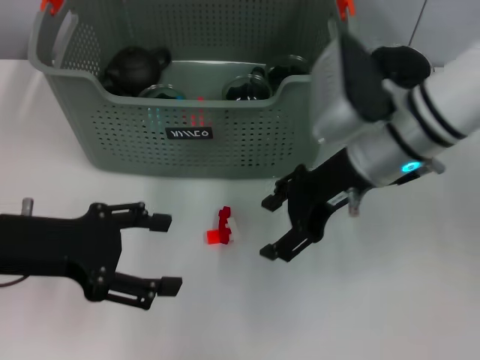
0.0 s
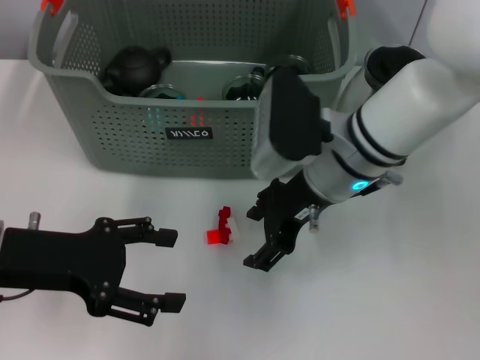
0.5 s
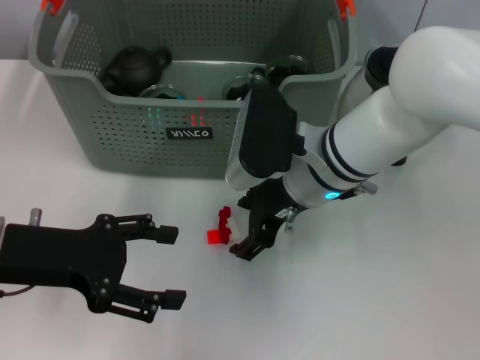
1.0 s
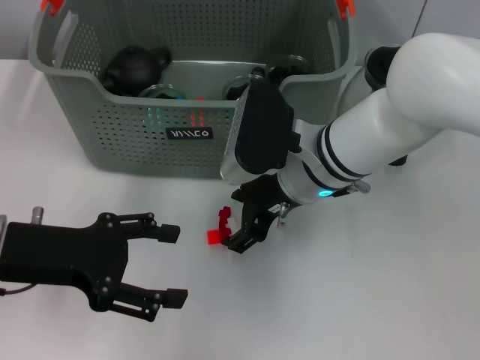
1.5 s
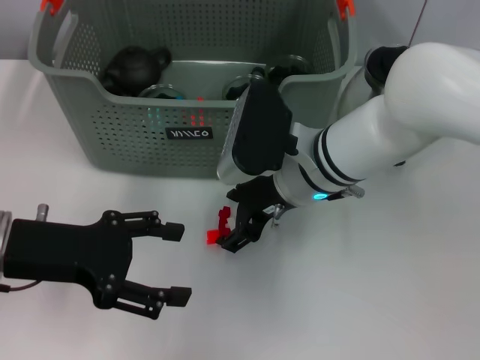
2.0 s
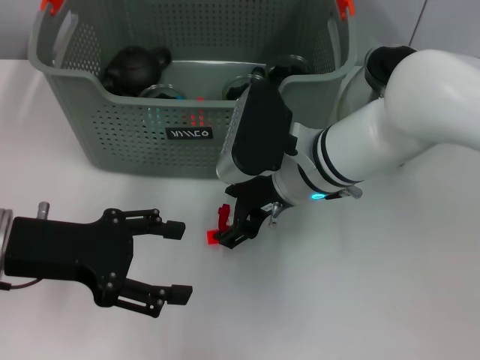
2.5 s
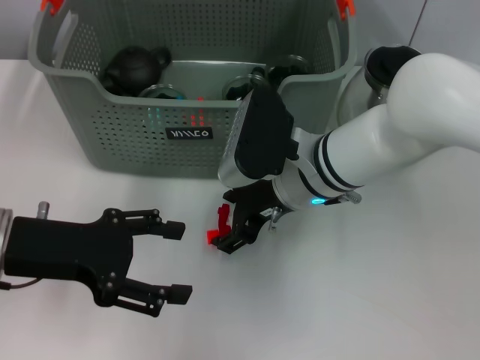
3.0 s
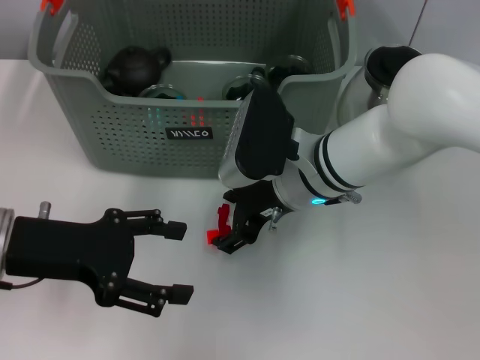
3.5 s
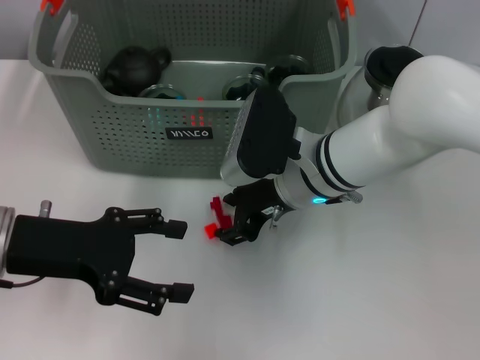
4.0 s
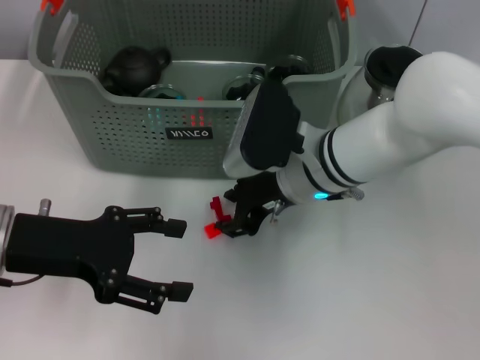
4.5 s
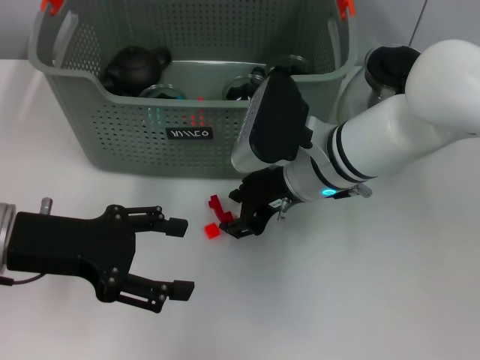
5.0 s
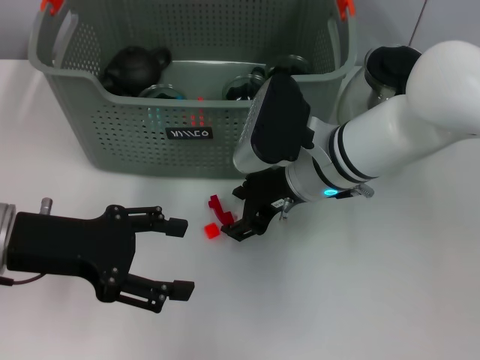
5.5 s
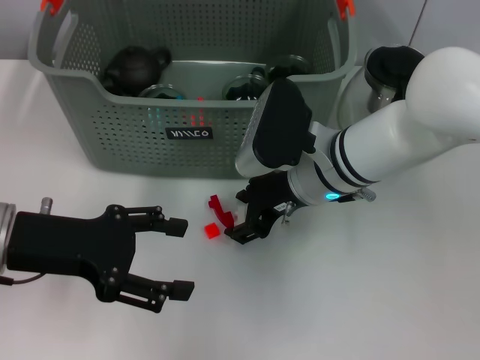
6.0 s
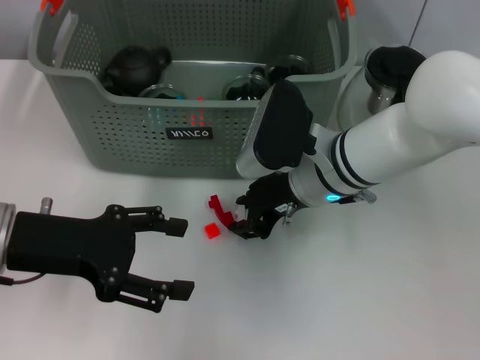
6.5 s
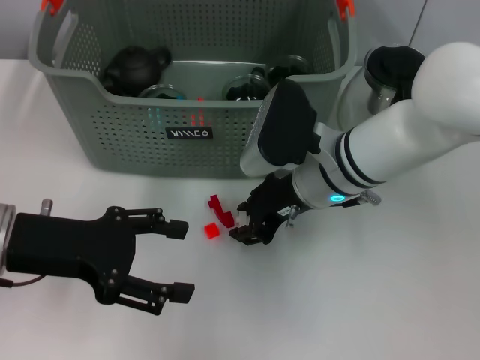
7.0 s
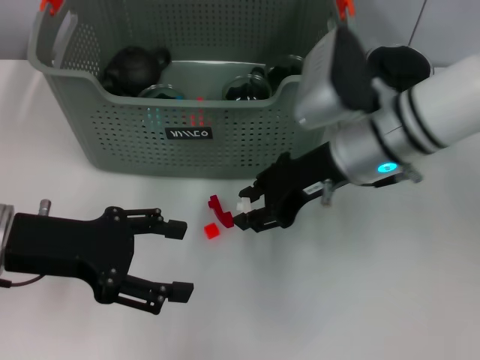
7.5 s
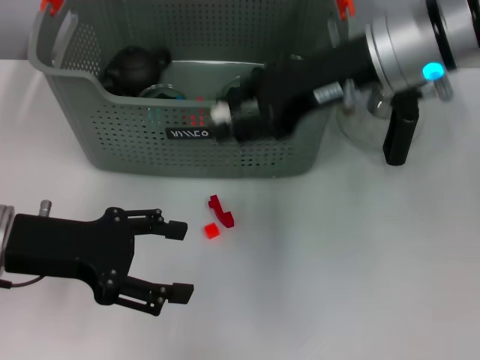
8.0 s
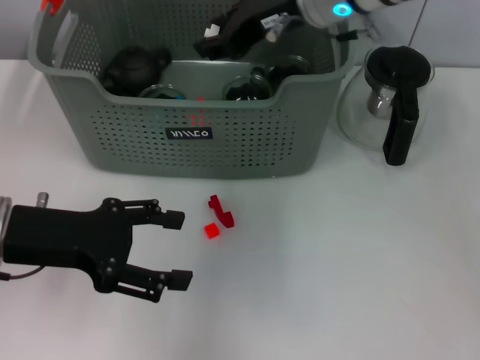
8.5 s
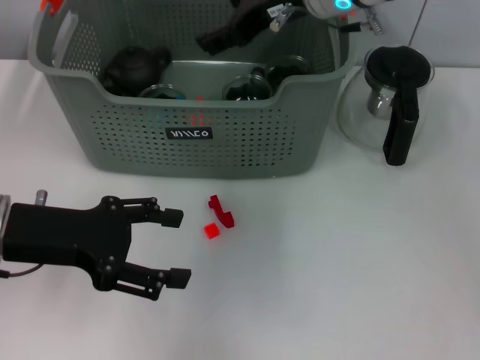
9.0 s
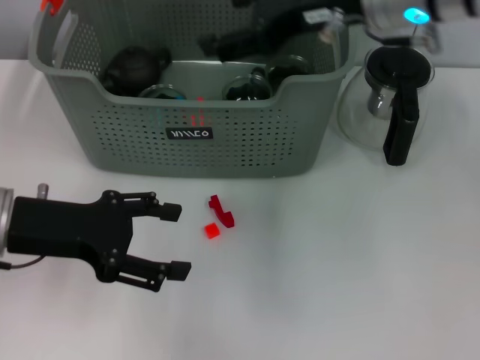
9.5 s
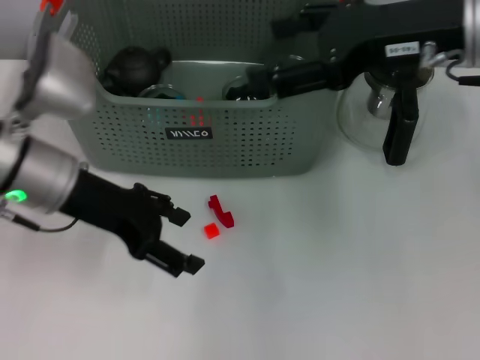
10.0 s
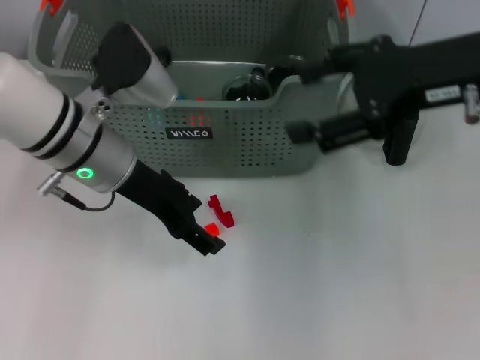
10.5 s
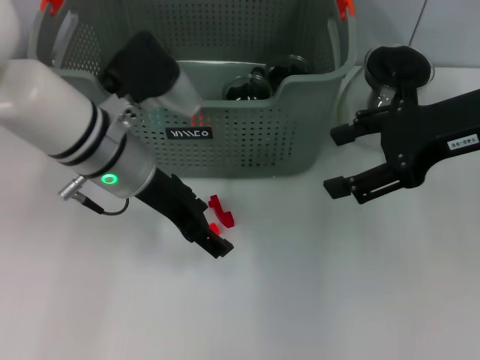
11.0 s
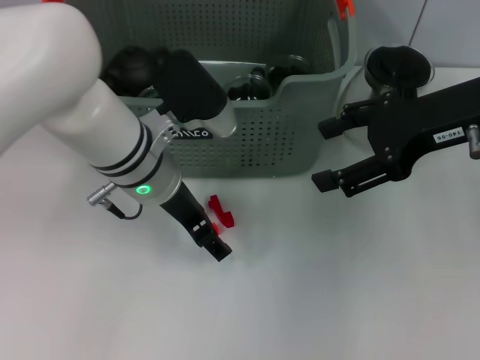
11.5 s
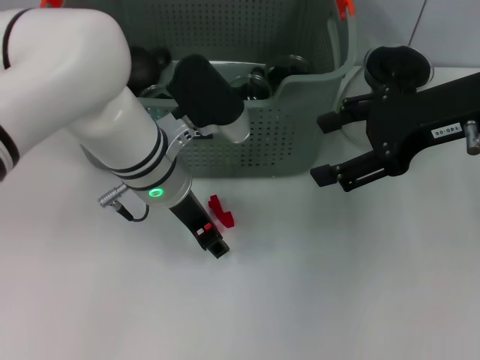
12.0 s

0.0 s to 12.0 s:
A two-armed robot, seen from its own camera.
Task of the whole recording: pick up the teacup on the table and place it into the storage bin, pick up the block on the table and place it into the storage bin.
Step, 0.0 to 6.5 s: Grasp the white block with right gripper.
Step, 7.0 to 8.5 s: Place the white block in the storage box with right gripper.
0.0 to 2.0 s: The right gripper is displaced to the left by some 5 cm.
2.0 to 4.0 s: The two grippers keep their place.
4.0 to 6.0 s: Both grippers stay put.
6.0 to 8.0 s: The right gripper goes about 15 cm upward.
8.0 to 10.0 s: The left gripper goes some 5 cm forward. The right gripper travels to the right by about 5 cm, and opens.
10.0 to 12.0 s: The left gripper goes about 10 cm to the right. Meanwhile the right gripper changes place by roughly 5 cm.

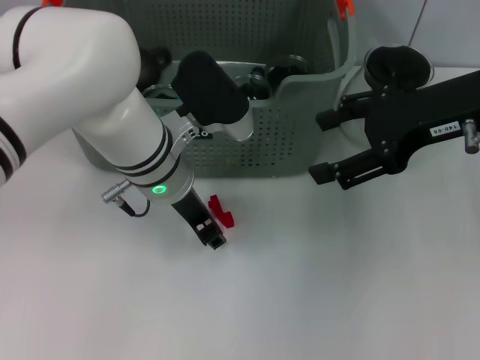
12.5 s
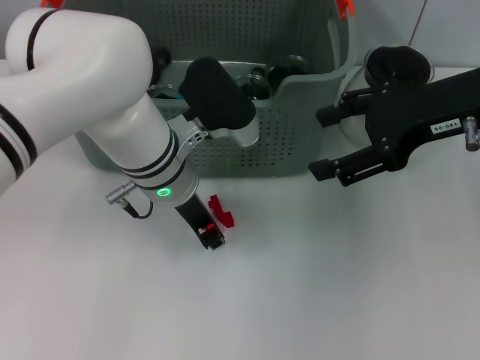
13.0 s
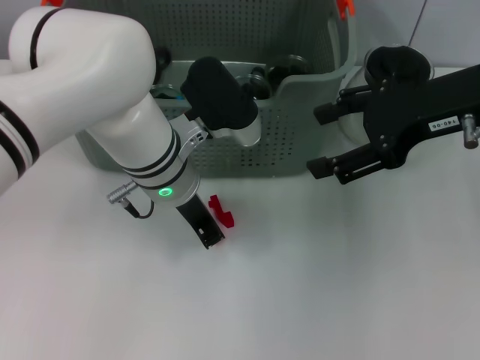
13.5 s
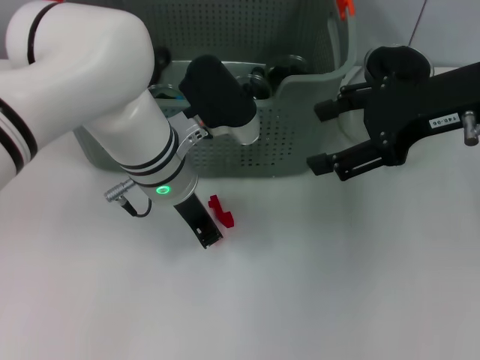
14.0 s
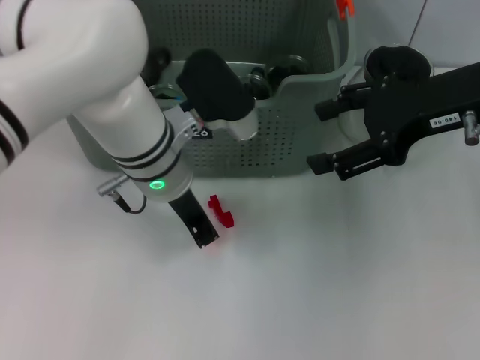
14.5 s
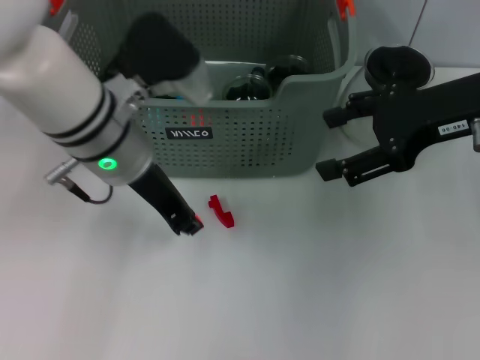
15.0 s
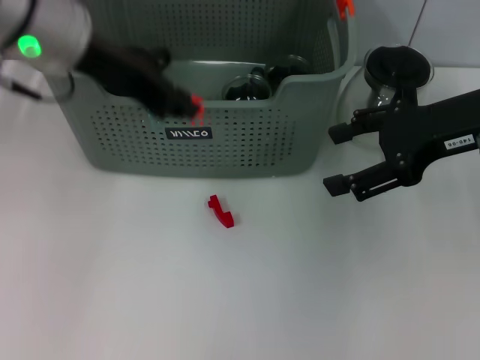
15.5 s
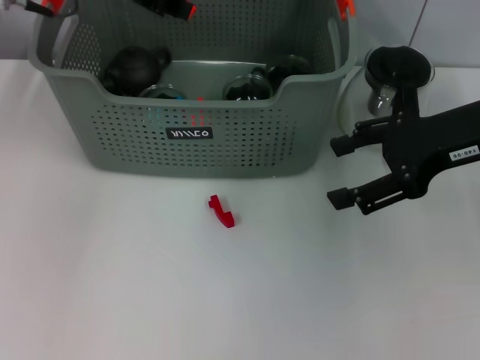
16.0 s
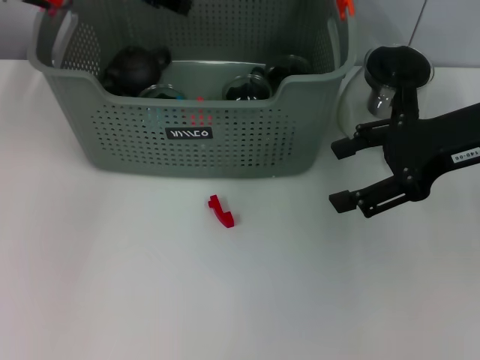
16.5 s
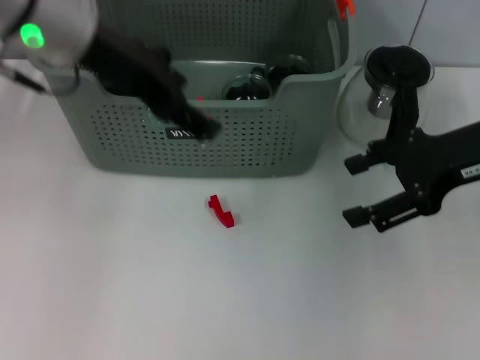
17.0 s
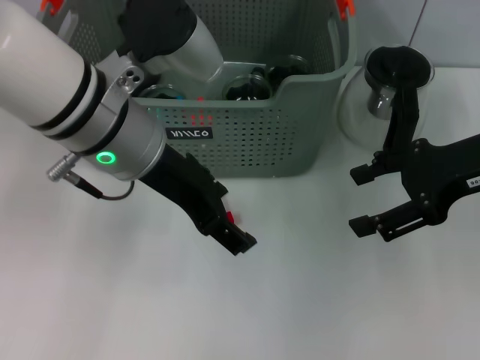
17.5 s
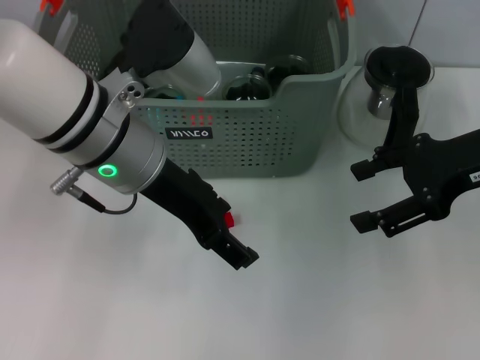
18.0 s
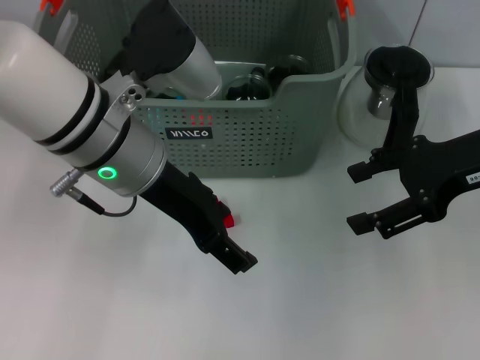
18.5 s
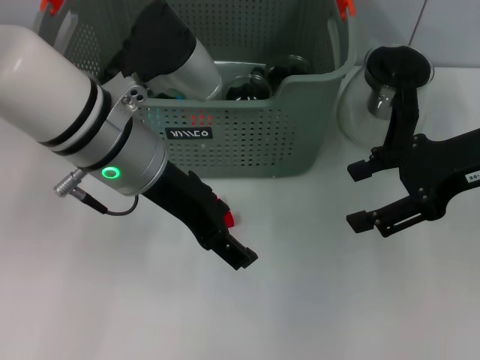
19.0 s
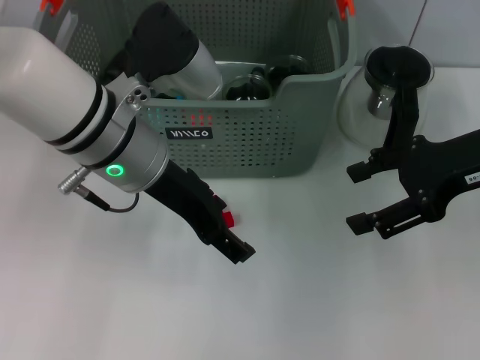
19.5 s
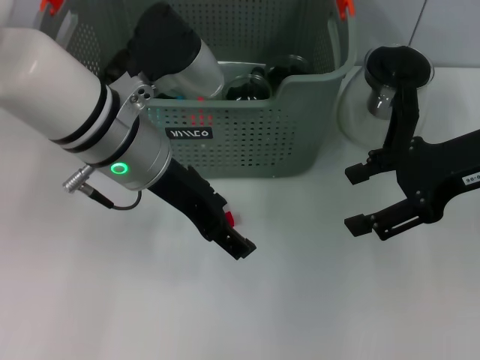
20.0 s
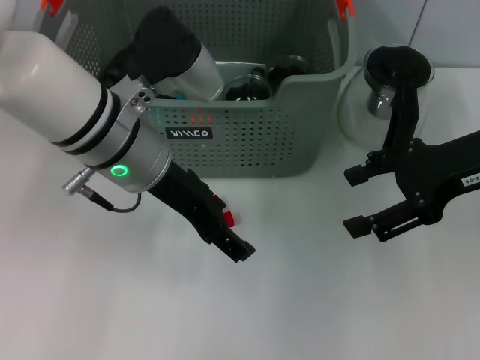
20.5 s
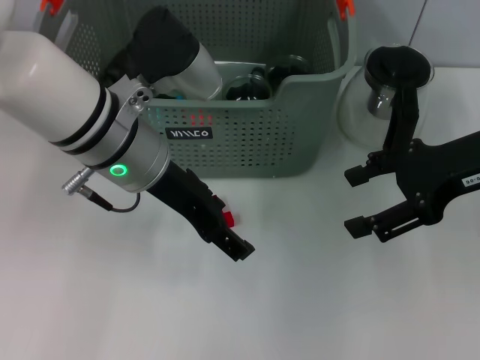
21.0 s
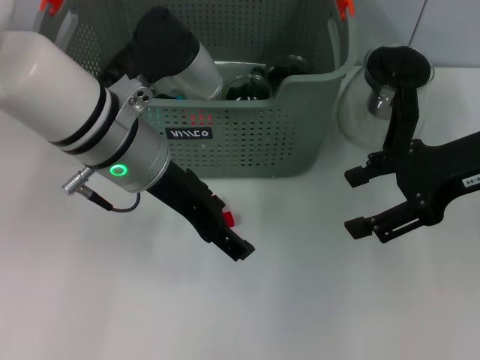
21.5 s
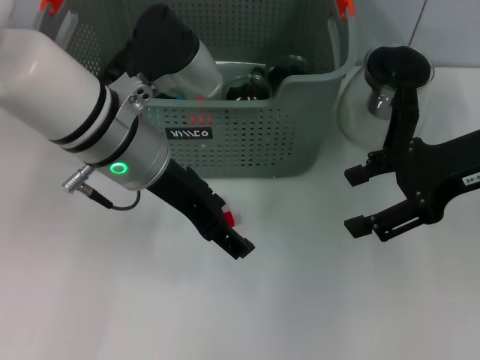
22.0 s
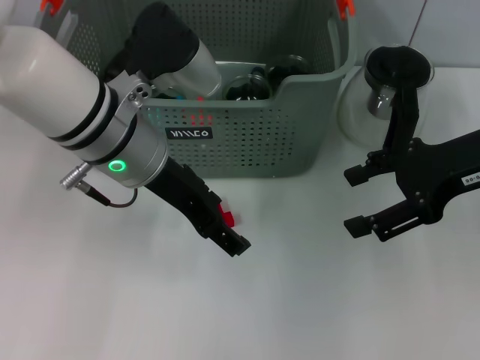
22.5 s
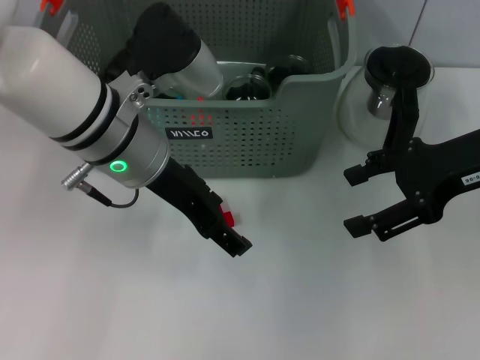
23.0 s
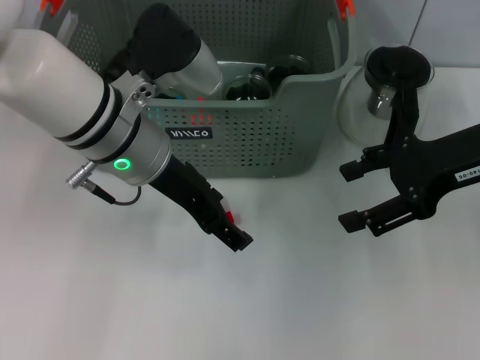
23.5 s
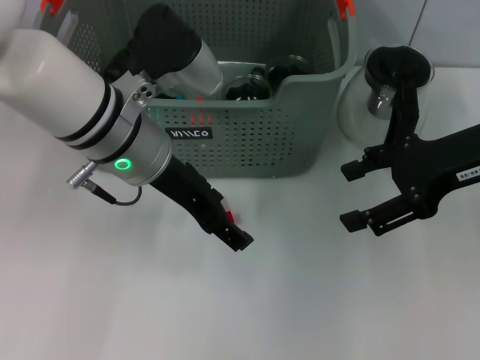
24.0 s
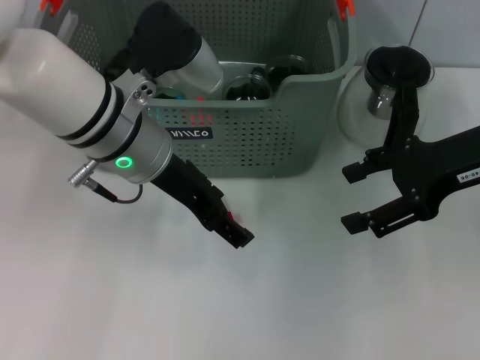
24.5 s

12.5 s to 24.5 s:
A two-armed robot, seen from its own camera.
Task of the whole recording: pick up the teacup on the table and place it into the storage bin, pick up the block on the table and place it into the storage bin.
Step, 14.0 to 16.5 s: Place the orange block in the storage box with left gripper.
12.5 to 14.5 s: The two grippers keep their place.
14.5 to 16.5 s: The left gripper heads upward, to the left and forward, covering about 20 cm.
16.5 to 18.5 s: The left gripper moves backward, downward and to the right, about 15 cm, and opens up.
18.5 to 20.5 s: The grippers stay close to where they were, moving slightly.
20.5 to 24.5 s: Neither gripper changes place.

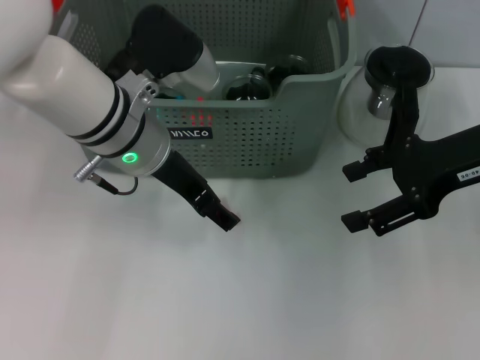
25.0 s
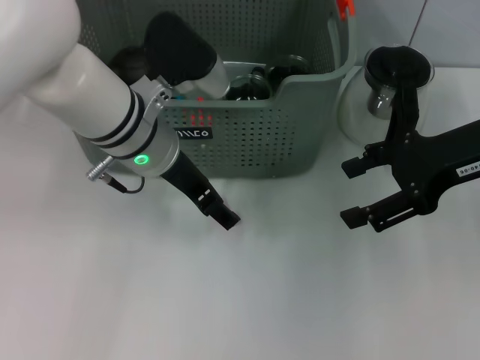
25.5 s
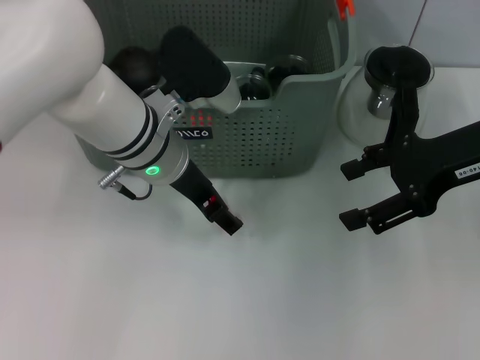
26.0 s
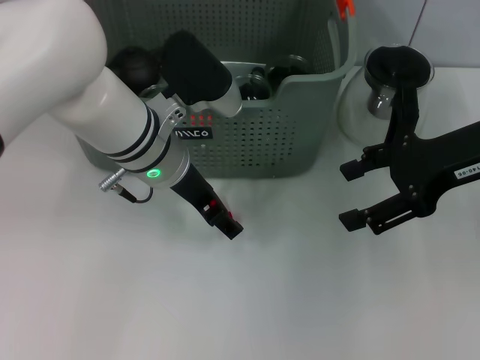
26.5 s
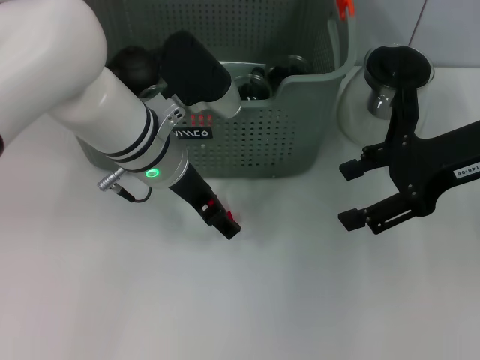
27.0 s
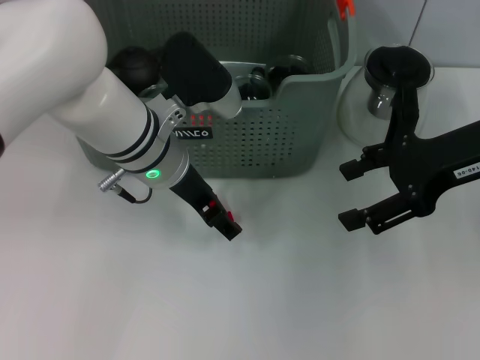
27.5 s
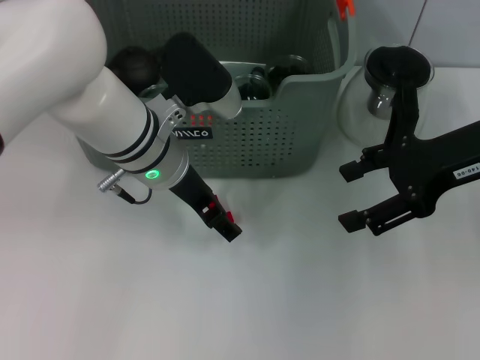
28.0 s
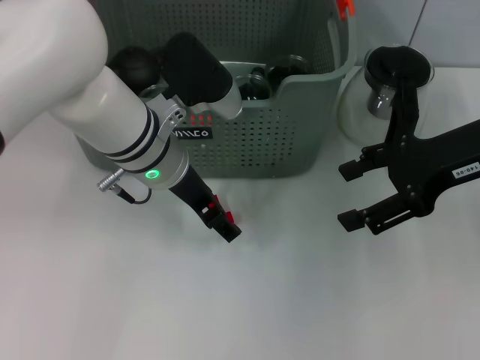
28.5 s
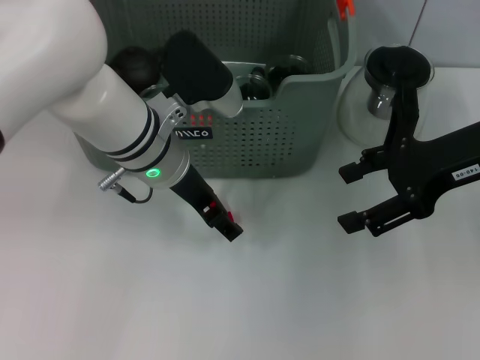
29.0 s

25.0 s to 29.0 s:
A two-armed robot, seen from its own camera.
Task of the whole recording: pick up the teacup on the table and place it into the storage bin, pick up the block on the table and place it into the storage bin.
25.0 to 27.0 s: The grippers move only a little.
27.0 to 29.0 s: Neither gripper changes place.
